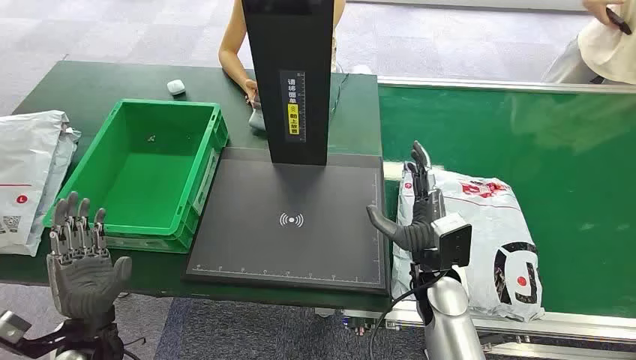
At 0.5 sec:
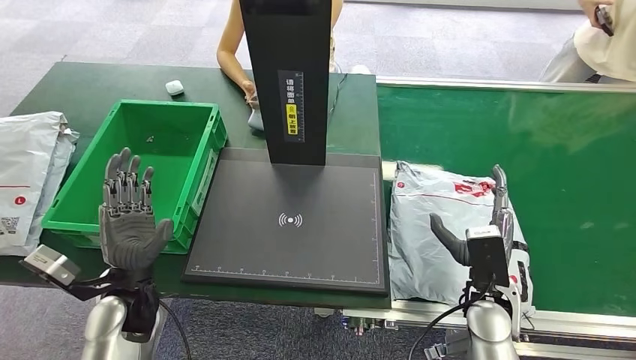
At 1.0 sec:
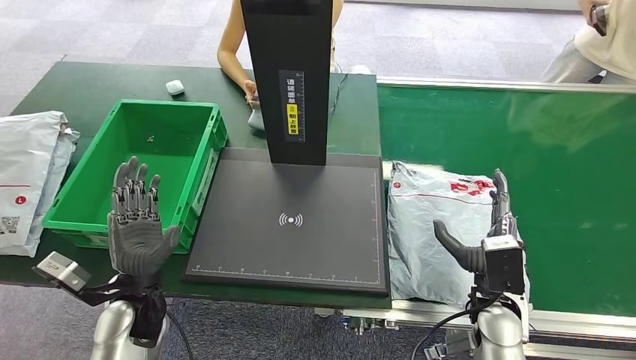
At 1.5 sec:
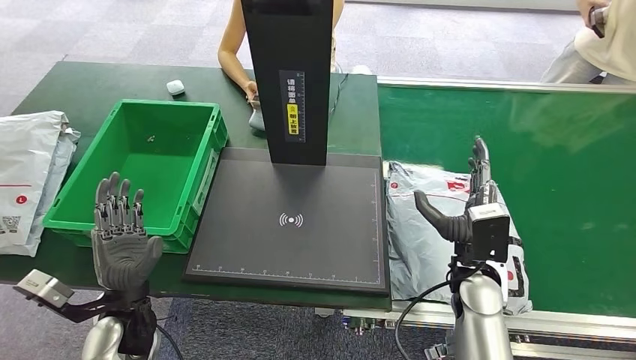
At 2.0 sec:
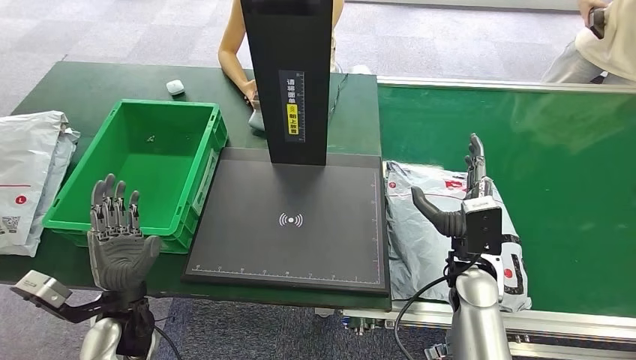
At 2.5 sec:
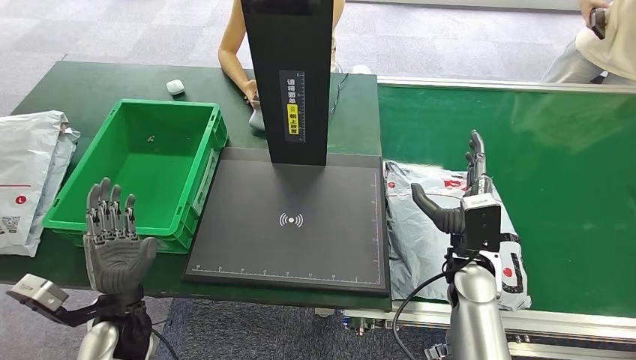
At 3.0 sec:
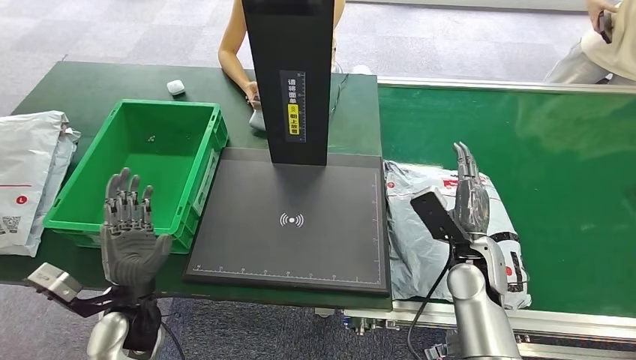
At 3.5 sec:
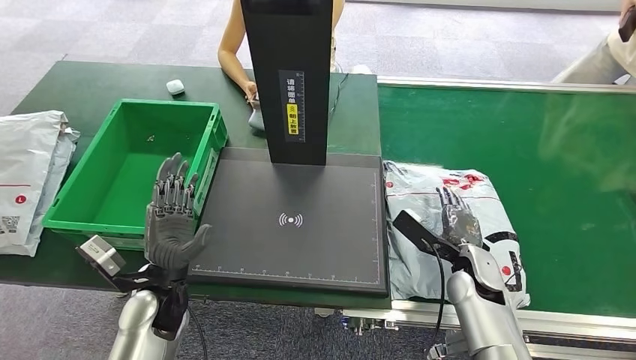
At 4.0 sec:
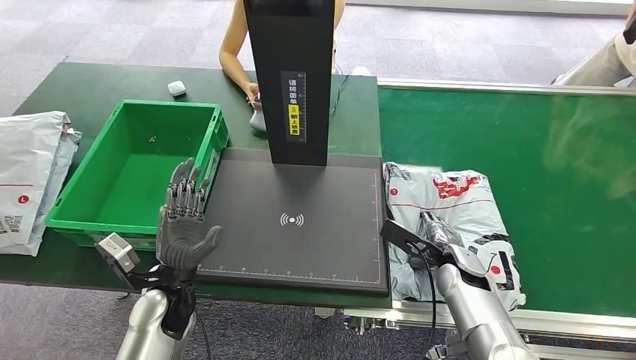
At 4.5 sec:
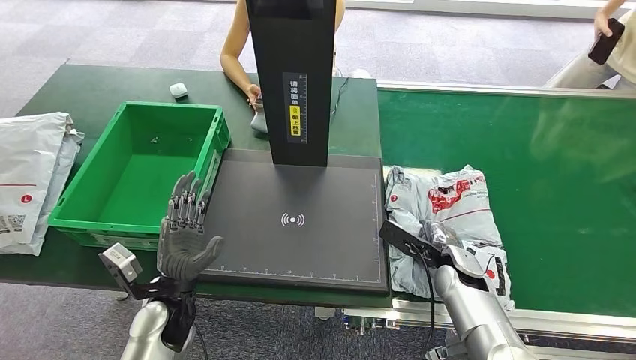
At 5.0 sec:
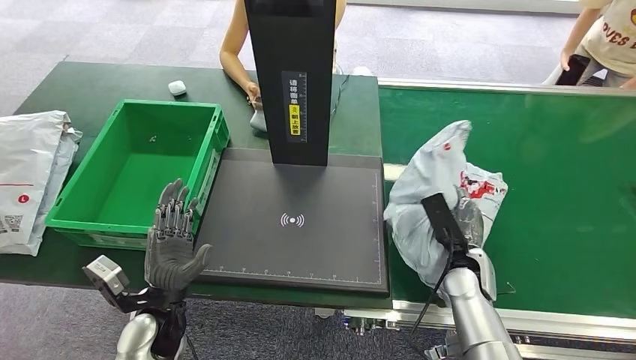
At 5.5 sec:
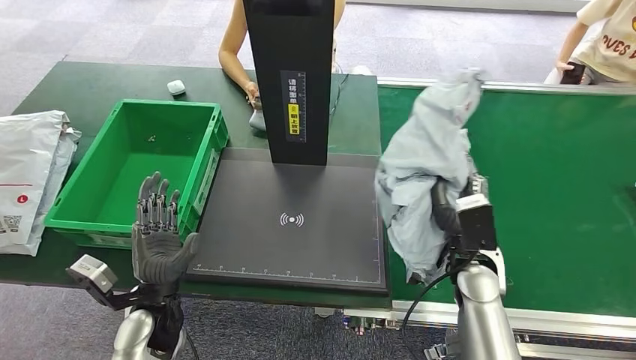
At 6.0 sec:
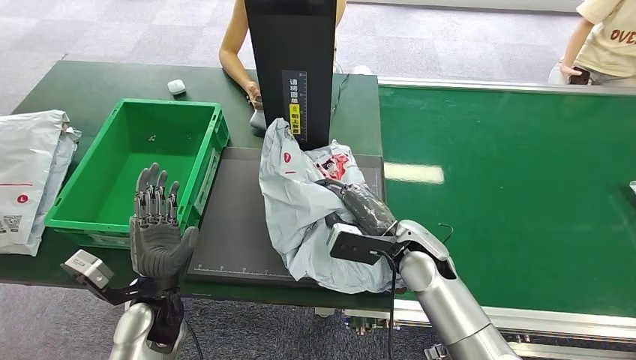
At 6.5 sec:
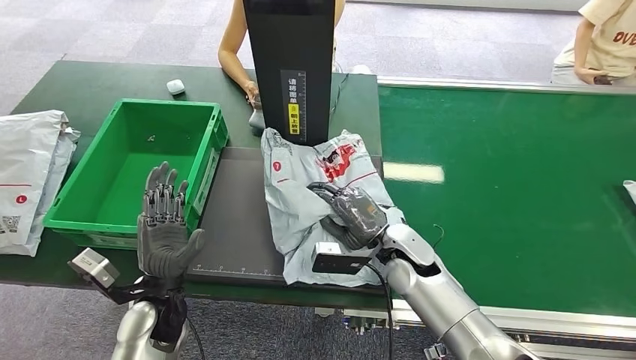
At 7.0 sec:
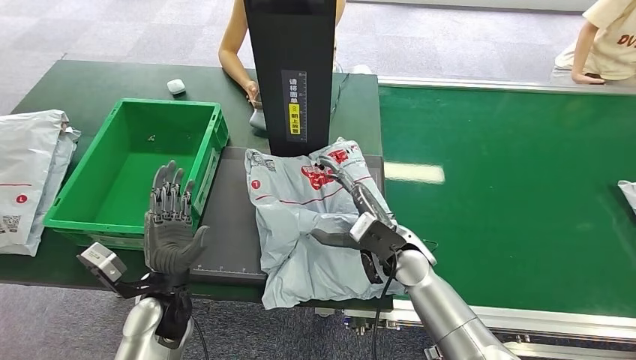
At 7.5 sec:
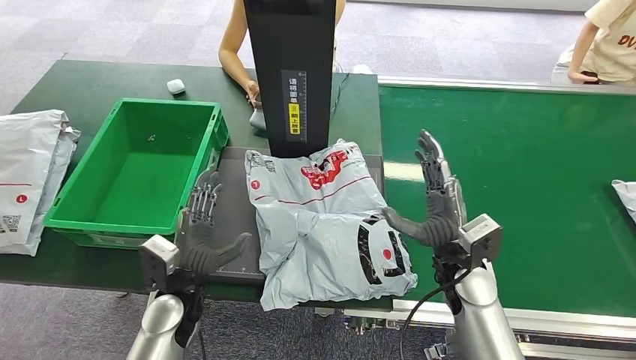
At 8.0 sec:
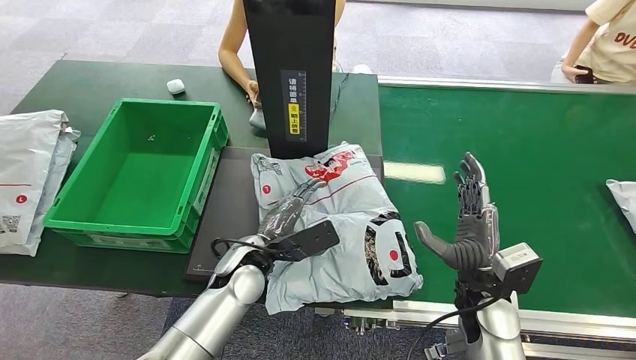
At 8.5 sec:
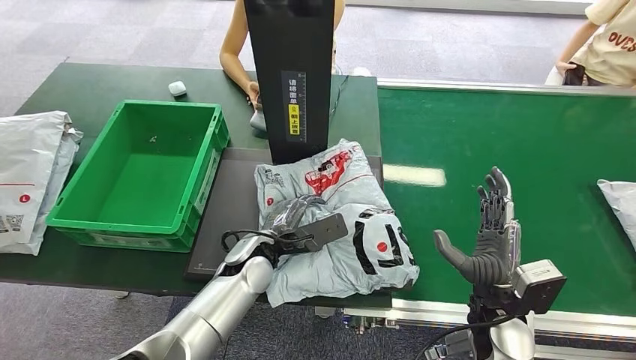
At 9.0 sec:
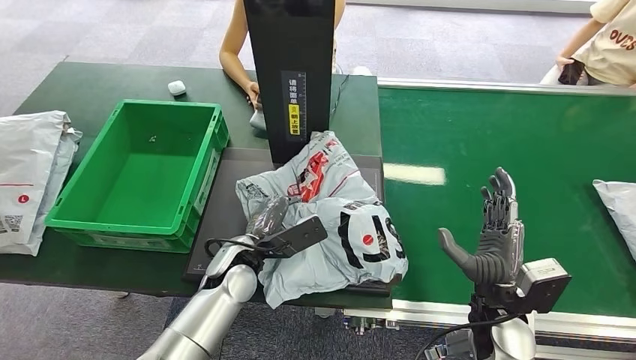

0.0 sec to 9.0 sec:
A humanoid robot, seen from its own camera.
Task of the whole recording: Weigh the package on the weighing device and place it in the left basket.
Step, 0.0 sec to 5.0 sec: Pick up the package from the conveyor belt.
Step, 5.5 sec to 7.5 sec: Place the package onto the inbound machine.

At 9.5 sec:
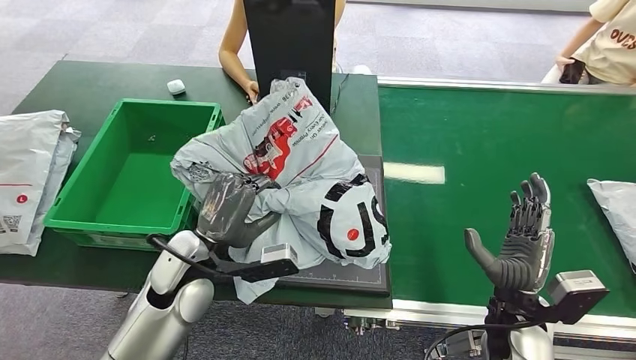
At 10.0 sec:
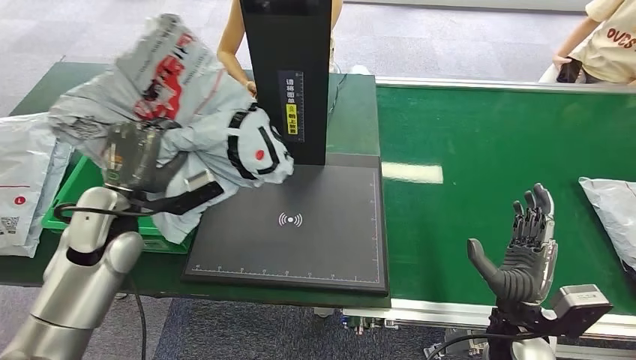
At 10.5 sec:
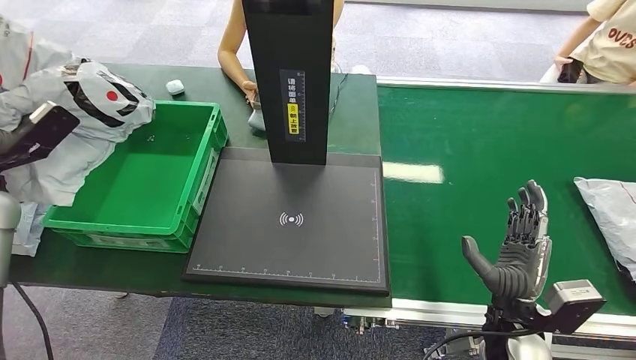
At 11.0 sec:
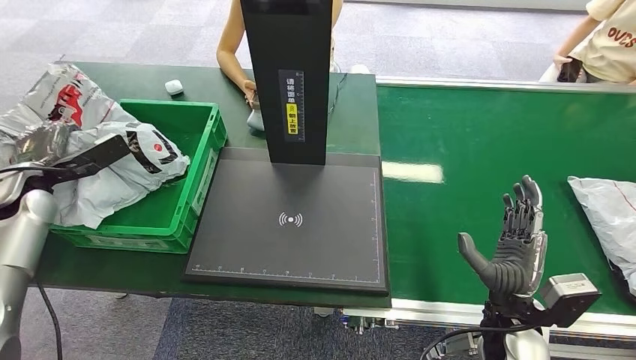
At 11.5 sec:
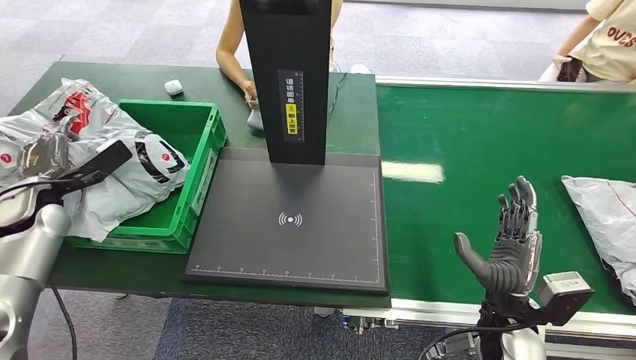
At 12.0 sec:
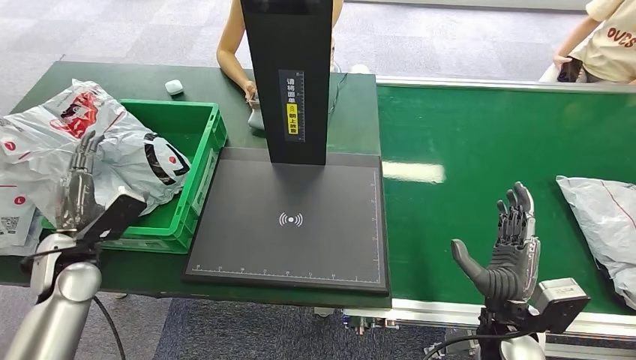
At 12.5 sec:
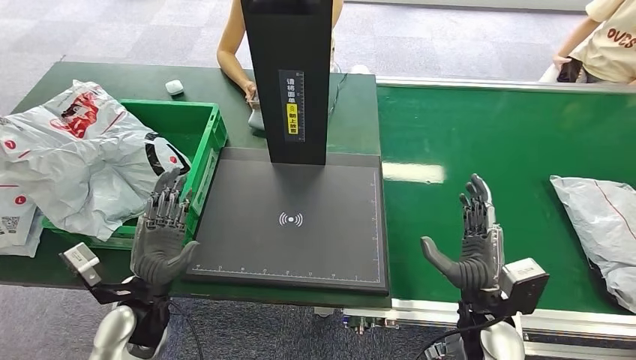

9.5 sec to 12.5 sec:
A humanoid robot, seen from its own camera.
Task of the whole recording: Weigh the package on the weighing device and place it in the left basket.
Step, 10.5 sec to 12.5 sec: Place the package into the parcel locker.
